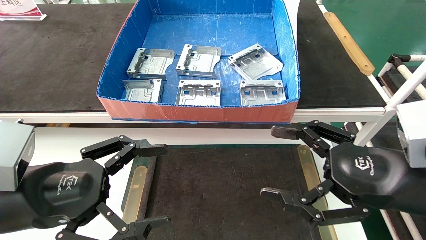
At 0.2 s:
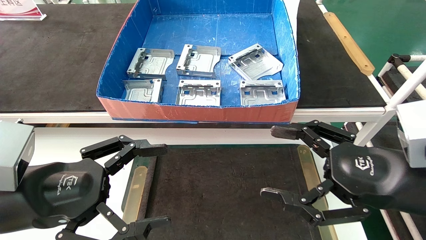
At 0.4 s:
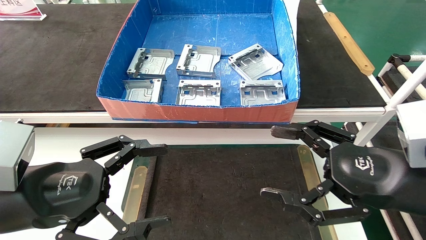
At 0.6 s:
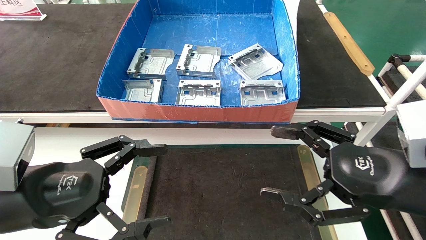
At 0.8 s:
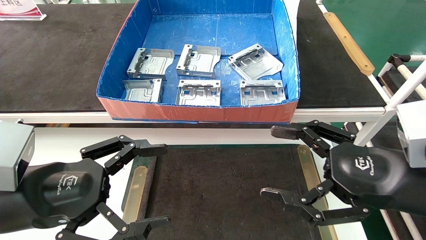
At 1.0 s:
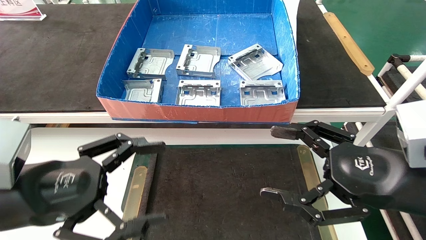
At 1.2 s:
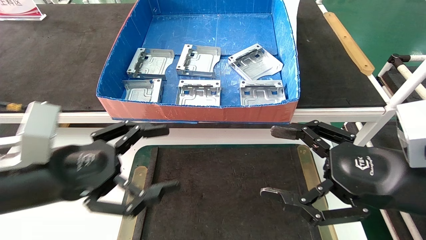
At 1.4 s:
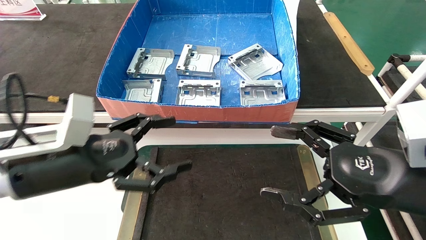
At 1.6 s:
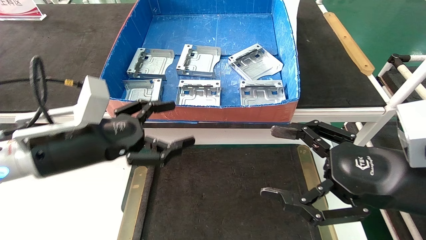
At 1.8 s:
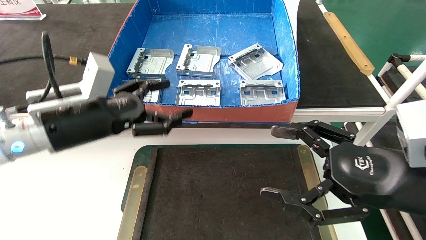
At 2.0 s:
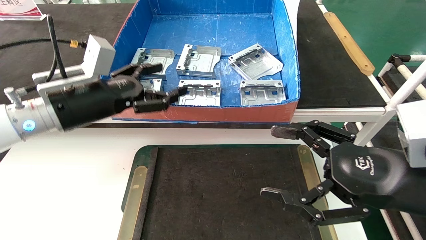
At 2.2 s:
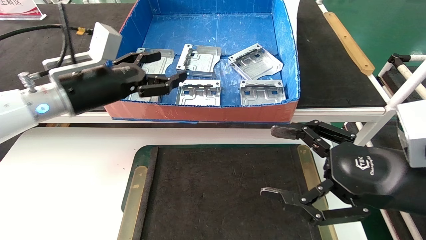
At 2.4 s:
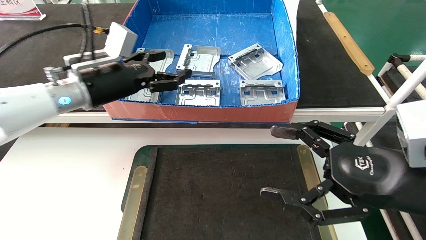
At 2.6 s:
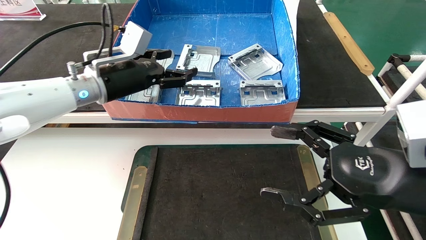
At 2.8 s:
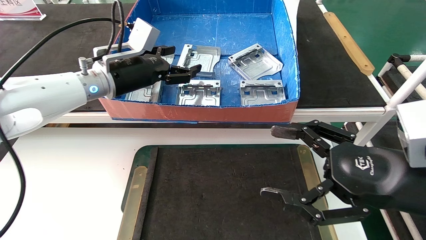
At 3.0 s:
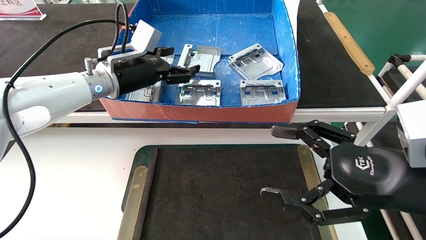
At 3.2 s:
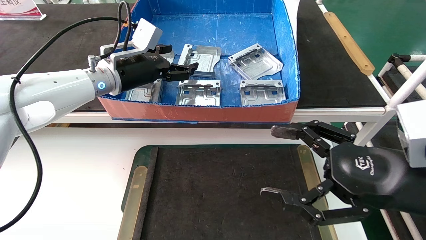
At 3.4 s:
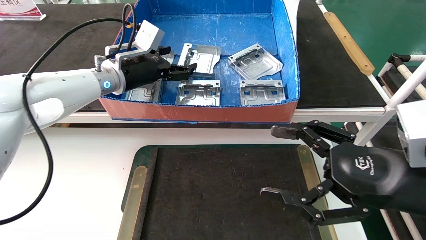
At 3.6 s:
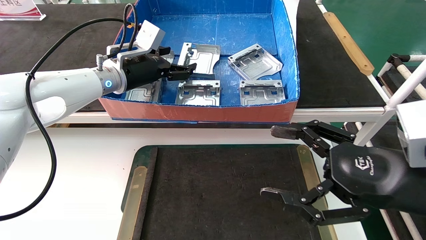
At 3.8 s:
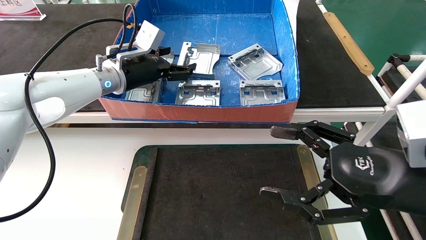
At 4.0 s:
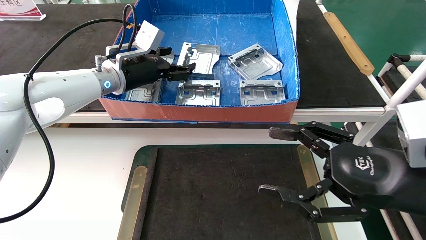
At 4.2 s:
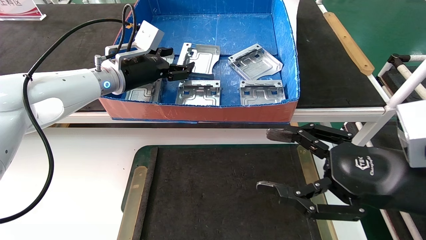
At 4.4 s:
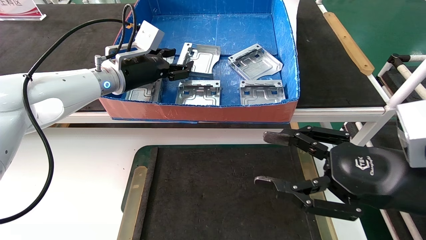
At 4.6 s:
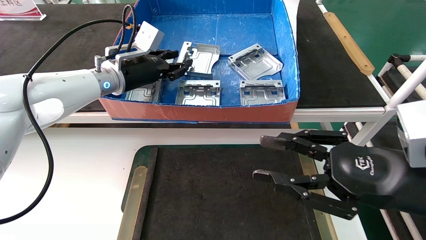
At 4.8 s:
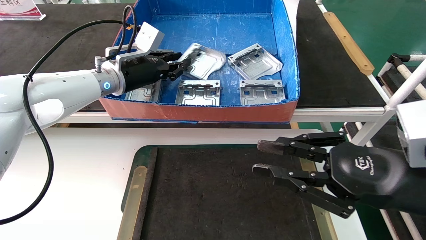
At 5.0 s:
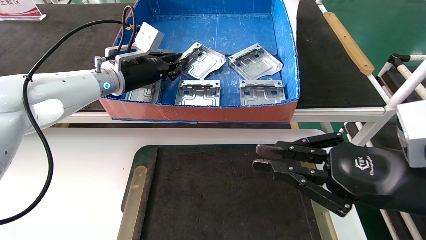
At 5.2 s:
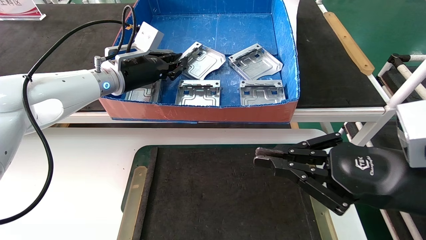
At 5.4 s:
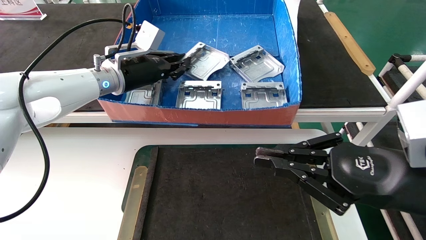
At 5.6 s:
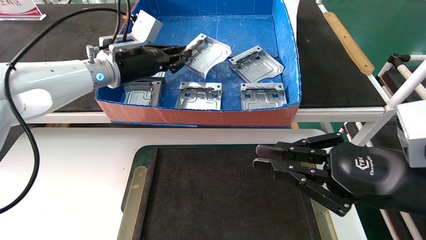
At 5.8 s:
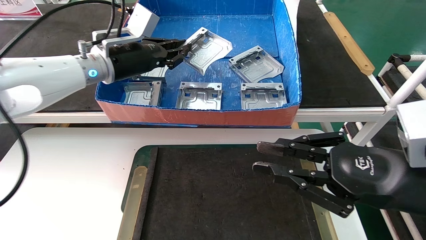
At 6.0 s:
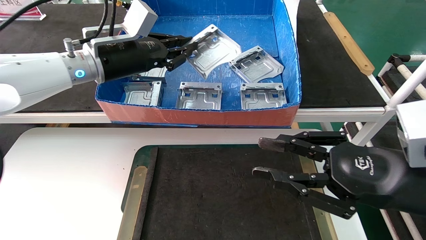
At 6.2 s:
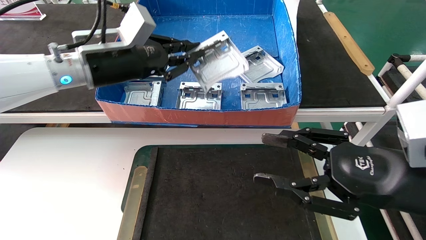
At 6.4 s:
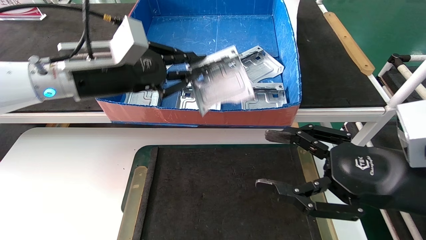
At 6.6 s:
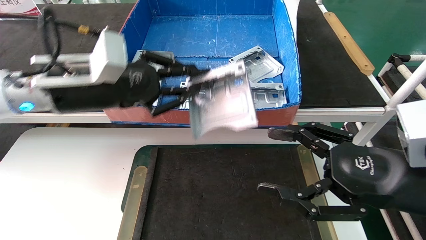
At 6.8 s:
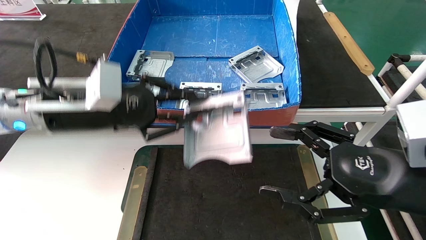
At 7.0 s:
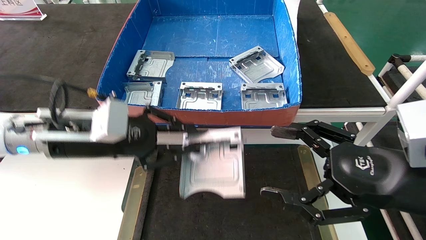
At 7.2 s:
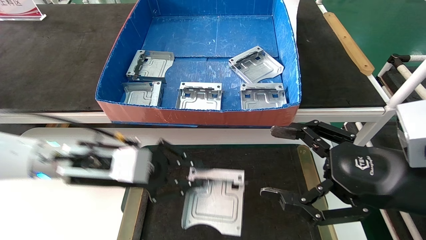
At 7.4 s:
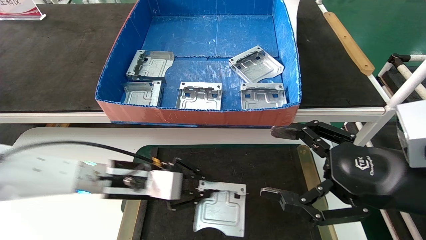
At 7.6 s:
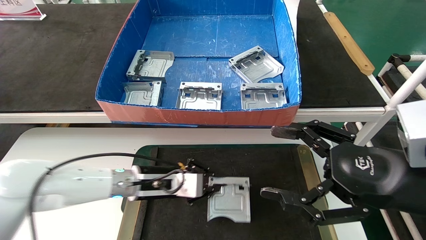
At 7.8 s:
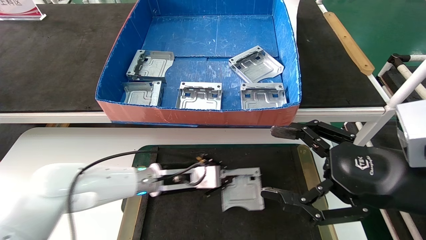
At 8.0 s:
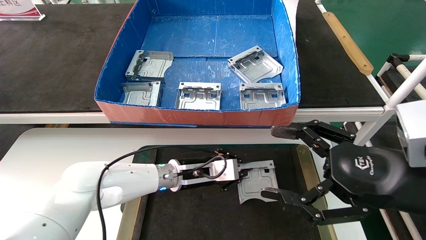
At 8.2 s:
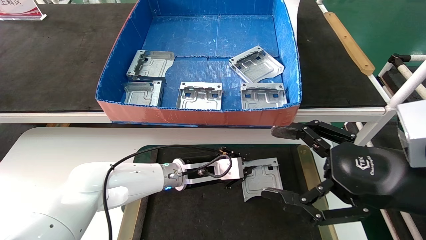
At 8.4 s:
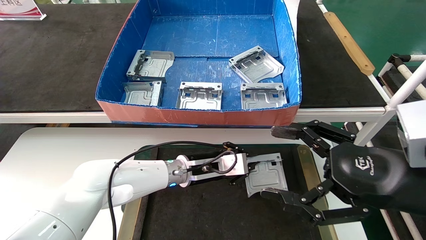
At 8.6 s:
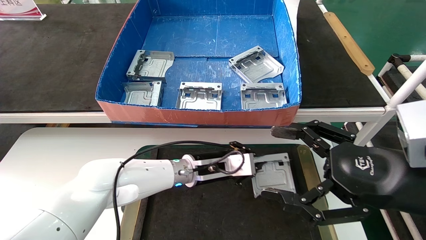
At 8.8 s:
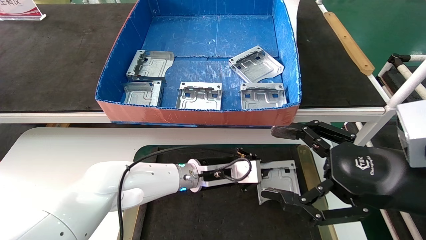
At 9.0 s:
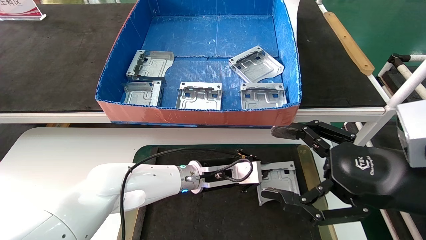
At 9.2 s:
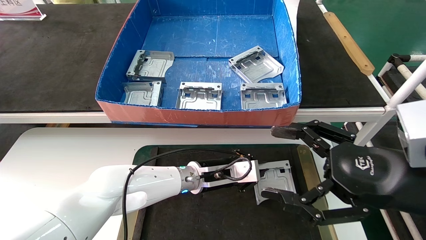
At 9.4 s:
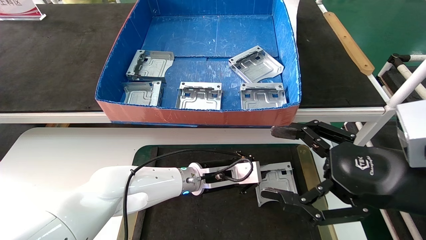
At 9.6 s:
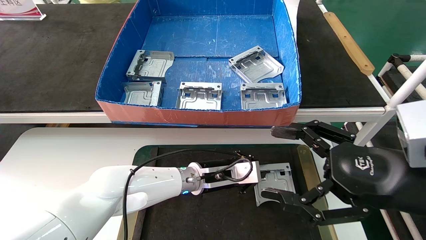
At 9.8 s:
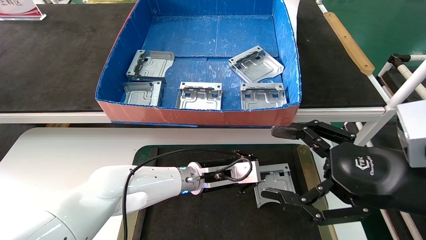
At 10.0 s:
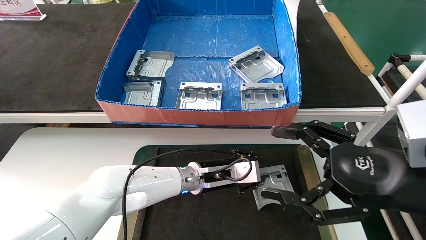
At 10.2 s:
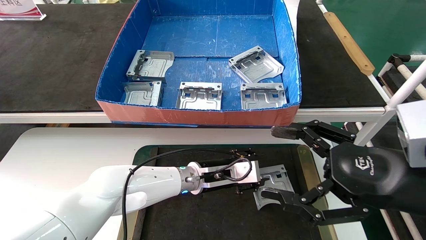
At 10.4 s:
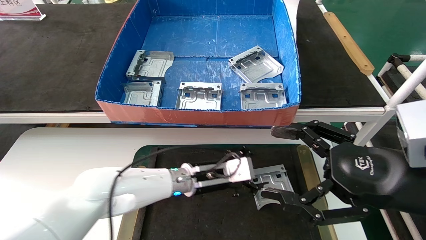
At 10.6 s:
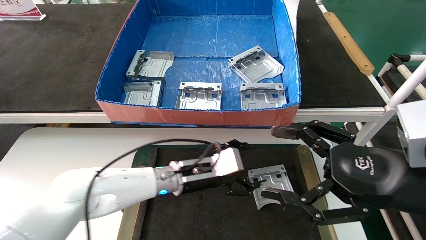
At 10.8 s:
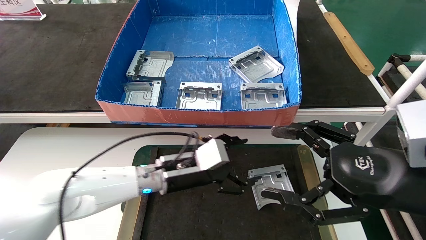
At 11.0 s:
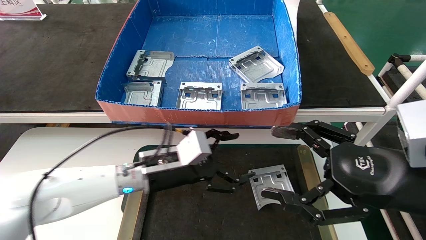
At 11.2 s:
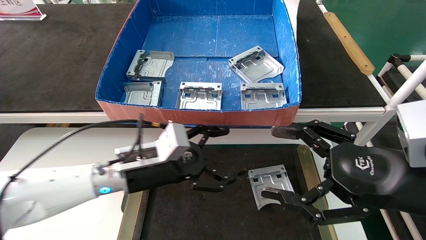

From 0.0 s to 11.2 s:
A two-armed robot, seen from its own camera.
Task of the whole recording: take the accessories out of the box and place them on the table.
Step, from 1.6 s to 5.2 s: Pick up the hard drive bracket from the feeding area.
Step, from 5.4 s to 9.8 s: Place the hard drive bracket into the box.
From 0.0 s to 1.6 s: The left gripper moves forward, approximately 10 cm.
From 1.6 s to 3.2 s: The left gripper shifts some 20 cm forward and upward.
From 3.2 s to 4.8 s: The right gripper closes its fingers. The left gripper closes.
From 4.8 s to 6.4 s: The left gripper heads backward, covering approximately 10 cm.
From 6.4 s to 8.0 s: The left gripper goes about 25 cm downward and to the right. Meanwhile the right gripper opens.
From 8.0 s to 9.6 s: The left gripper moves to the right, roughly 5 cm.
From 9.6 s to 11.2 s: The left gripper is displaced to the left, backward and upward by roughly 15 cm, and opens.

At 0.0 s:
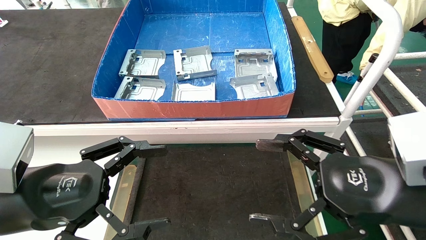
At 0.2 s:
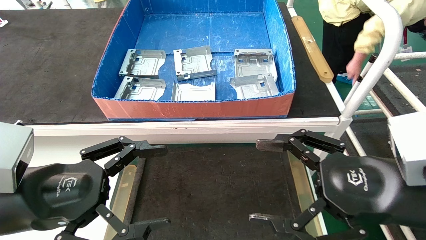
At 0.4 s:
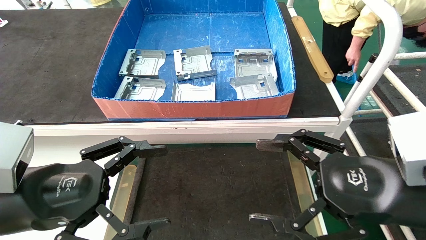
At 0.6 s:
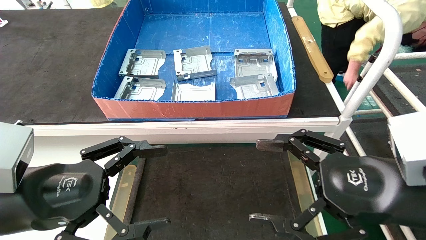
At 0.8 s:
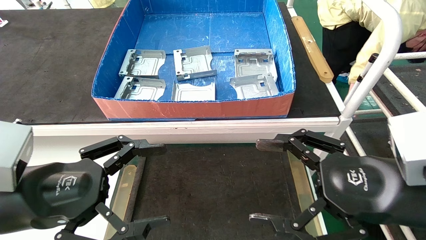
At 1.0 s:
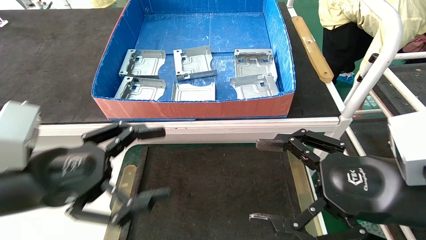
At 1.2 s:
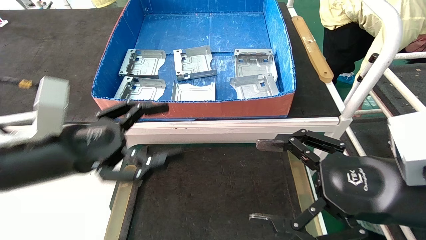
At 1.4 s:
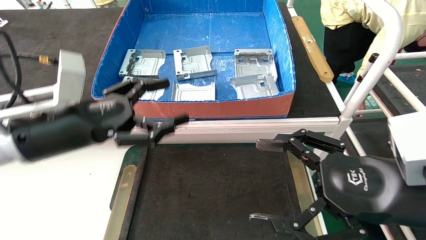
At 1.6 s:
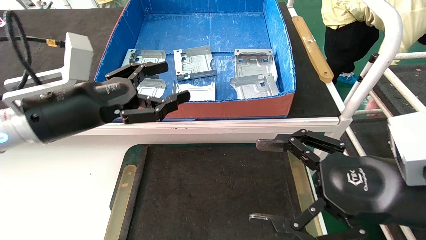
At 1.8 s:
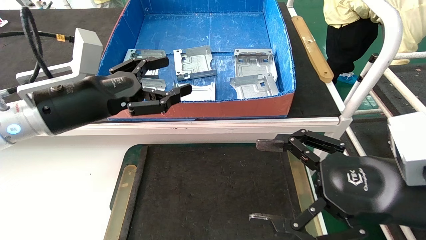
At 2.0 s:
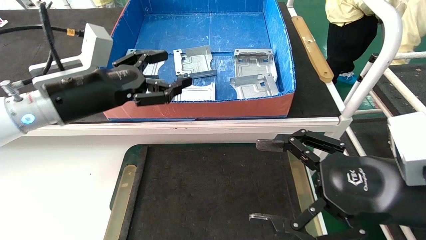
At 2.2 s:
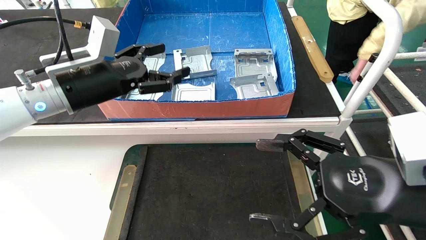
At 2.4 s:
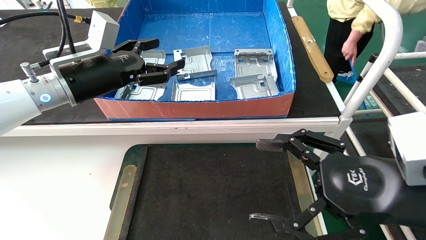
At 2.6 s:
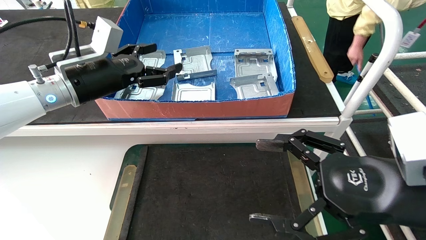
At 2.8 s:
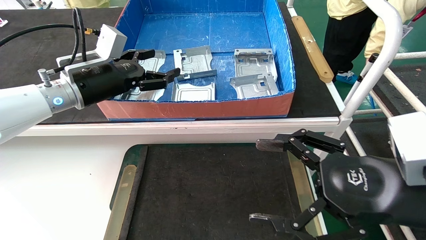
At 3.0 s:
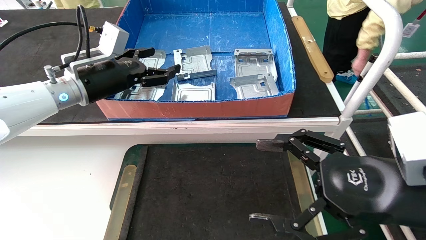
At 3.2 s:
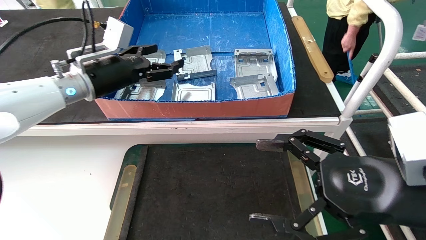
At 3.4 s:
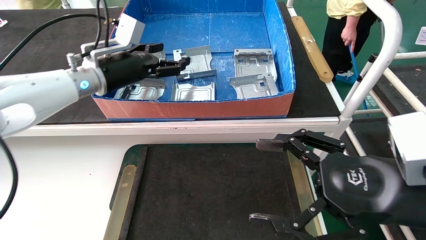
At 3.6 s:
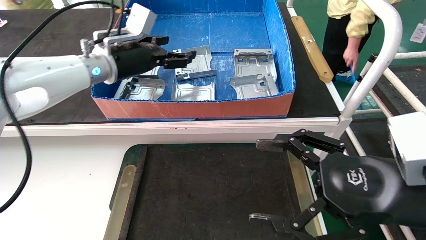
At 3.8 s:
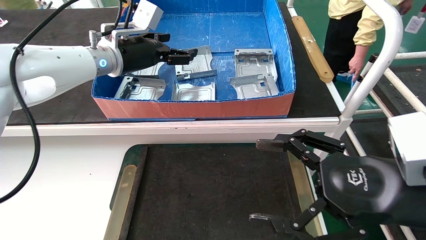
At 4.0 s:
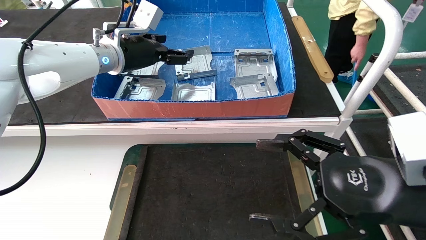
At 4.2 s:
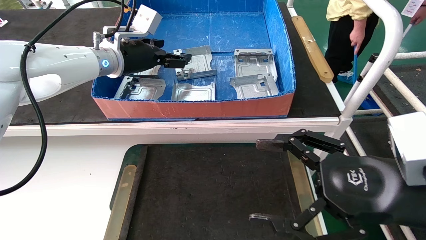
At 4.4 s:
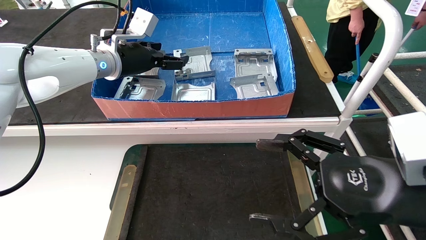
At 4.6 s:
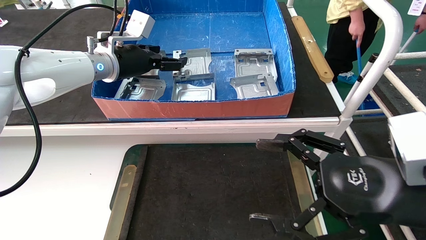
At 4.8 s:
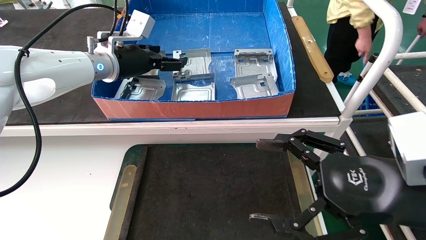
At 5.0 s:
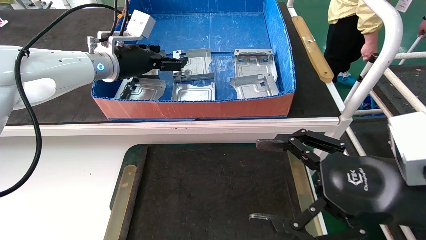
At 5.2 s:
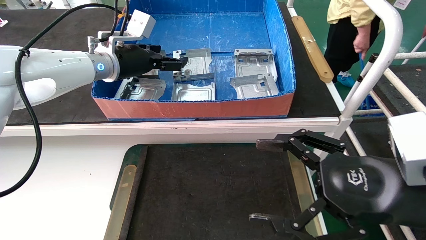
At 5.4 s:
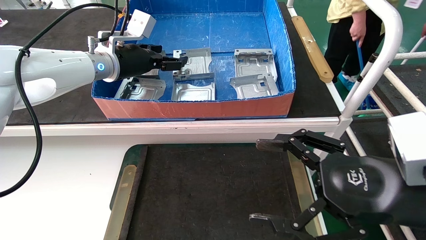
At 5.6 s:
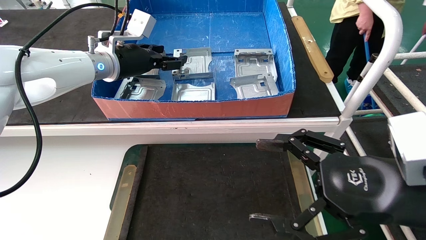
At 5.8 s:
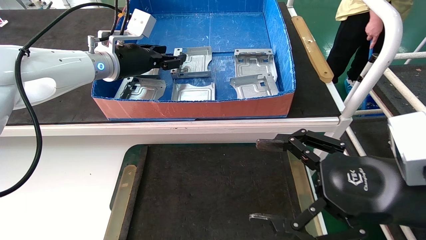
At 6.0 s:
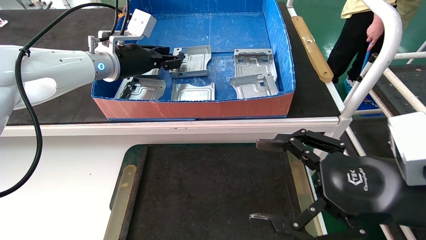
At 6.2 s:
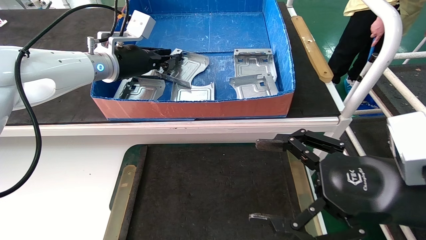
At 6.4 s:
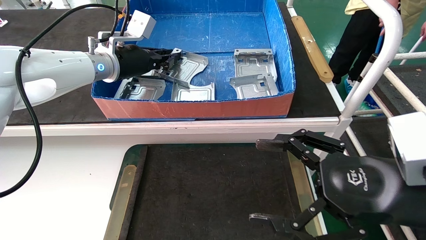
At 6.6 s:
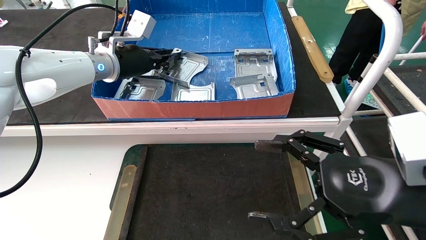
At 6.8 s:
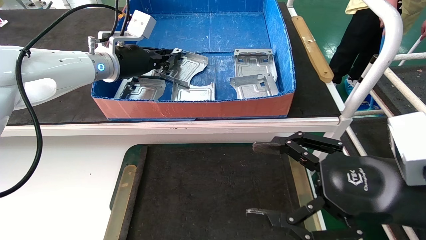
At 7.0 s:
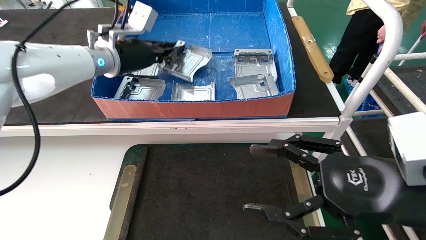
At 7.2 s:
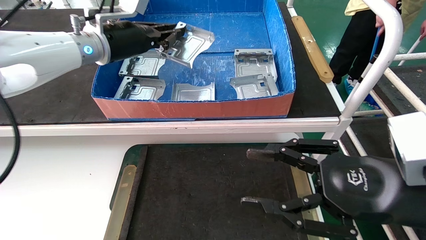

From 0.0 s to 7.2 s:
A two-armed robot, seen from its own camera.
Task of the whole recording: take the accessories out of the box and place them on the table.
Step, from 1.4 s to 6.6 s: Pick up the hard drive bracket from the feeding area.
From 0.0 s to 1.4 s: The left gripper is displaced forward by approximately 10 cm.
From 1.4 s to 2.8 s: The left gripper moves forward, about 15 cm.
From 2.8 s to 4.4 s: The left gripper shifts approximately 5 cm forward.
From 4.4 s to 5.8 s: Both grippers stay about where they are.
From 5.8 s to 7.2 s: The left gripper closes its fingers.
